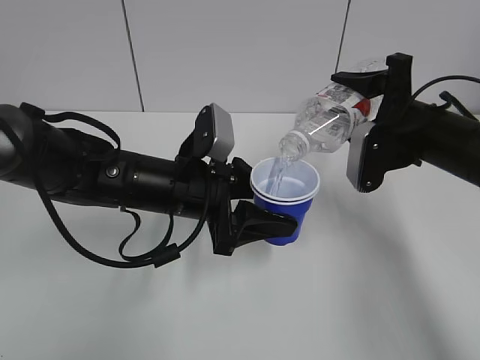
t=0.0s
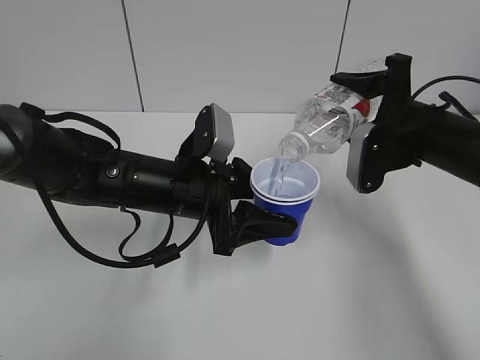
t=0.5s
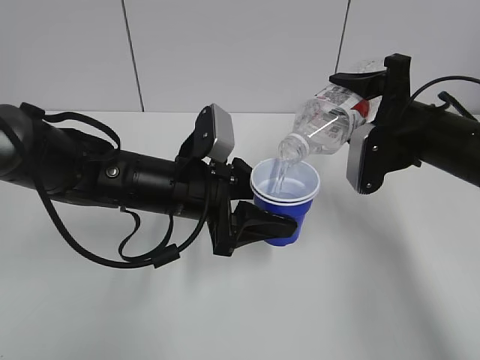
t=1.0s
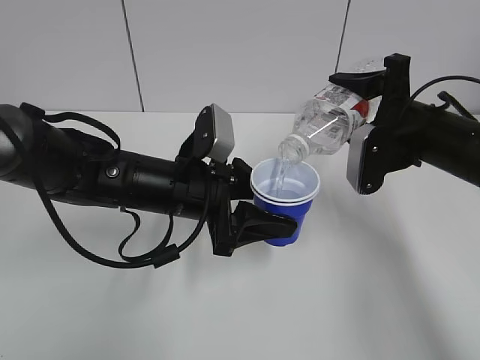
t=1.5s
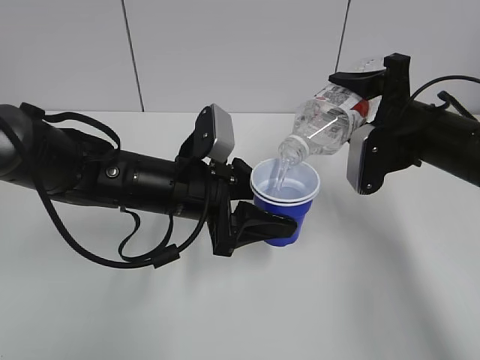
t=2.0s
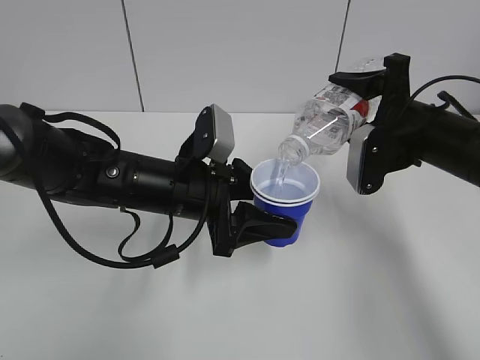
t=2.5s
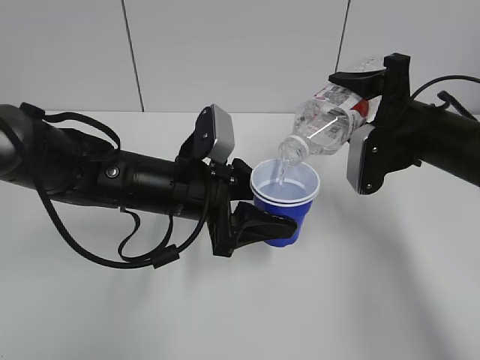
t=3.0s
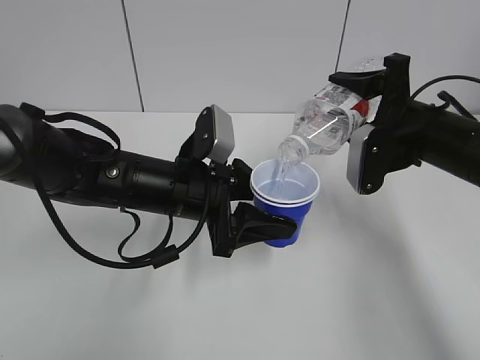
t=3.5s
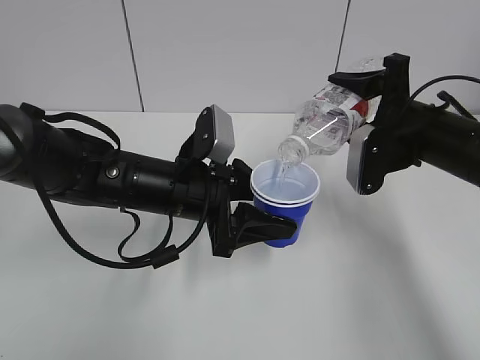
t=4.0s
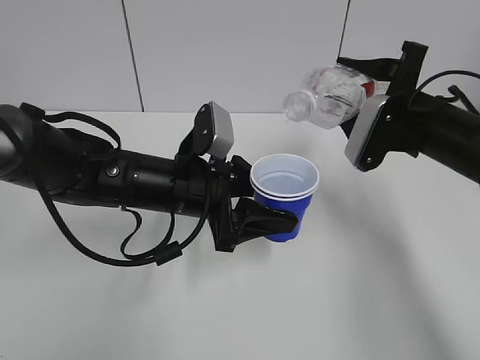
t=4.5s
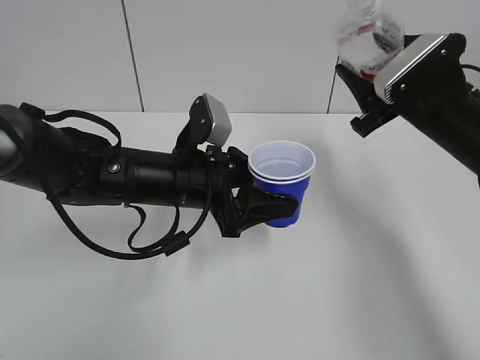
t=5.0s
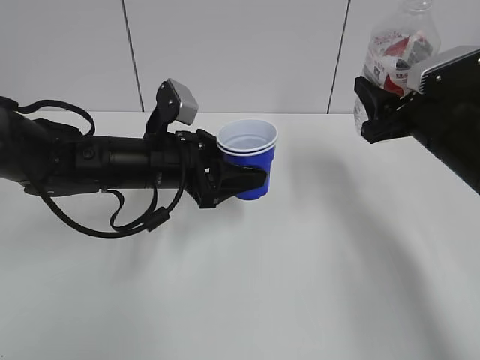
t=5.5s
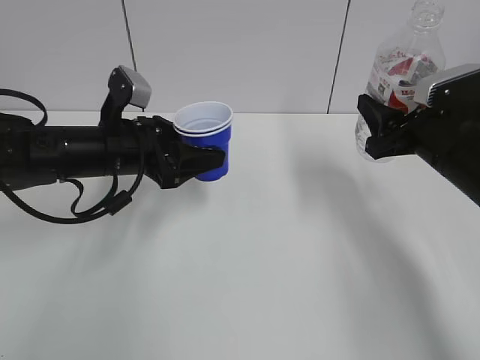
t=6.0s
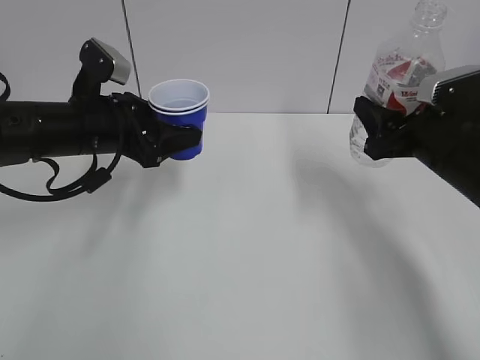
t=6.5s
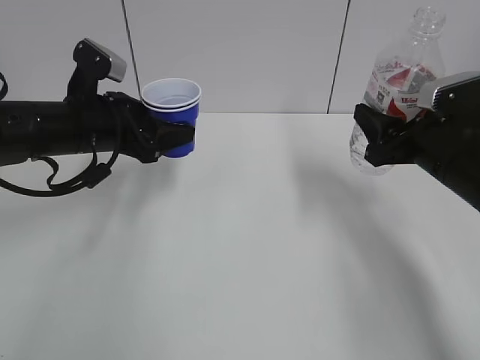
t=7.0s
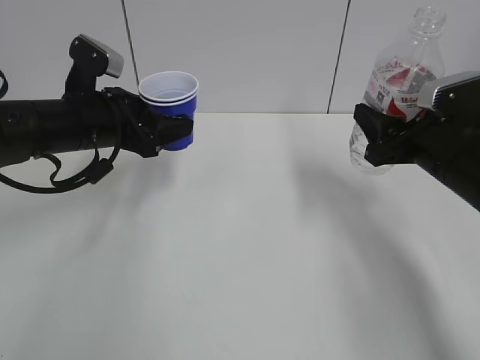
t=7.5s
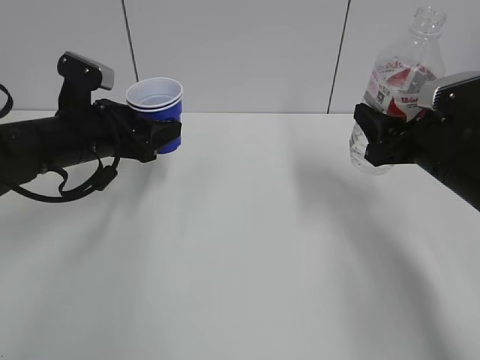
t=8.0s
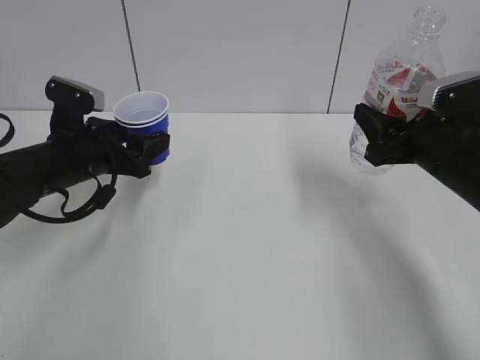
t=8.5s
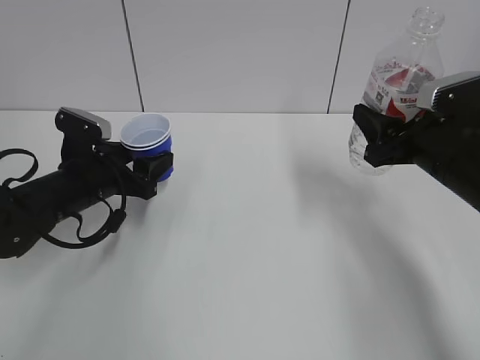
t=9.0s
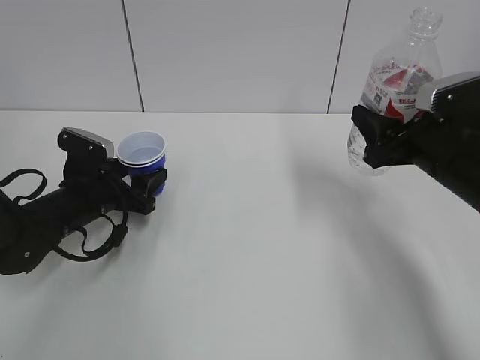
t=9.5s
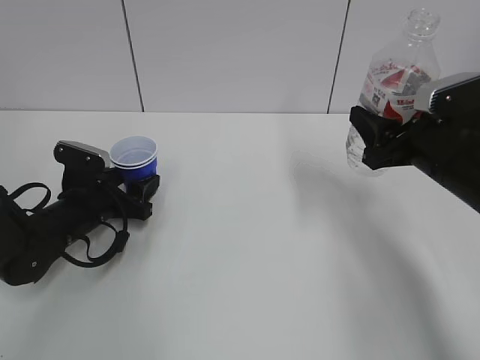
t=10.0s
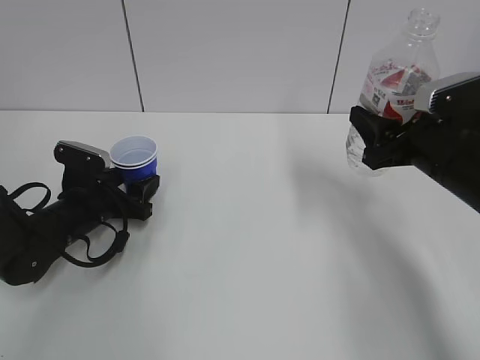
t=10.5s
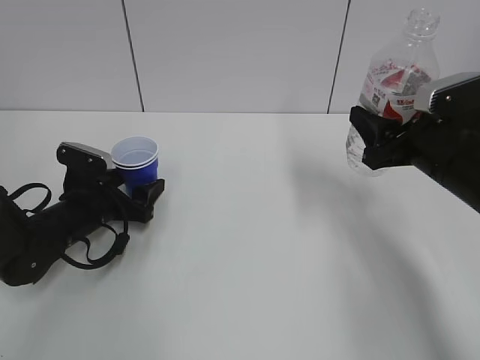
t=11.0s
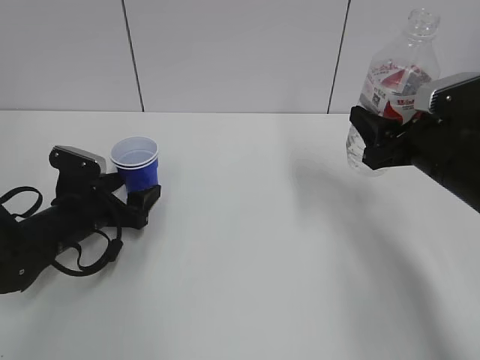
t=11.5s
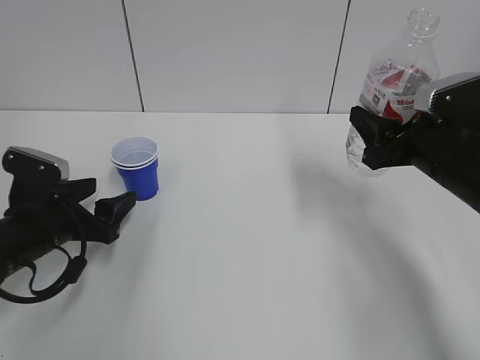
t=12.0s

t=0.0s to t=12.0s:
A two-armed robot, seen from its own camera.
Step, t=4.5s to t=5.5s: Collect water with the right hand.
Step, t=6.0s to t=11.0s: Place the paper cup with the left hand.
t=0.0s to t=4.0s: Both grippers stay put.
t=4.0s to t=6.0s: The left gripper travels to the left by some 10 cm.
t=8.0s to t=10.0s: The left gripper is displaced downward by about 10 cm.
t=10.0s to t=12.0s: The left gripper heads backward, covering roughly 5 cm, and opens.

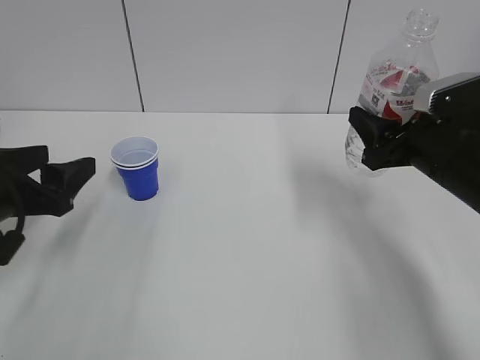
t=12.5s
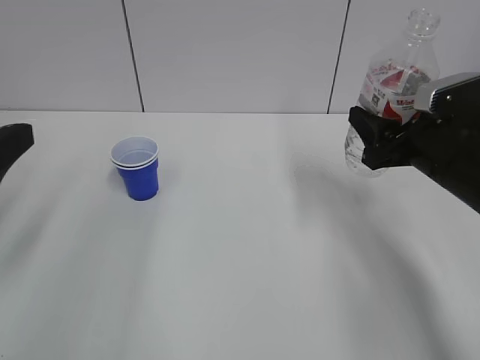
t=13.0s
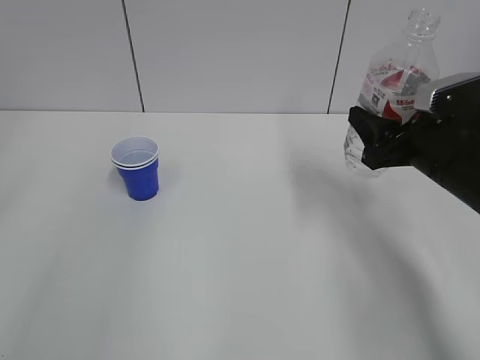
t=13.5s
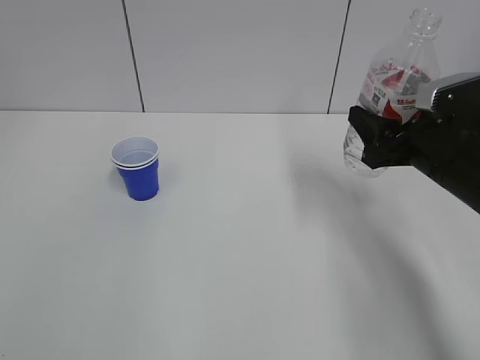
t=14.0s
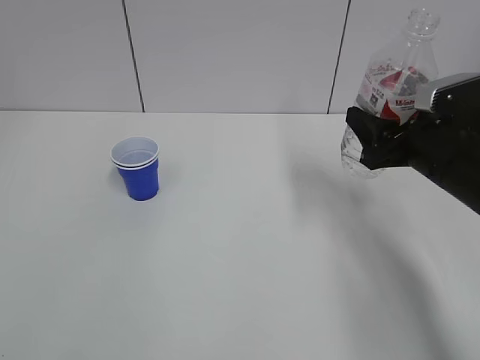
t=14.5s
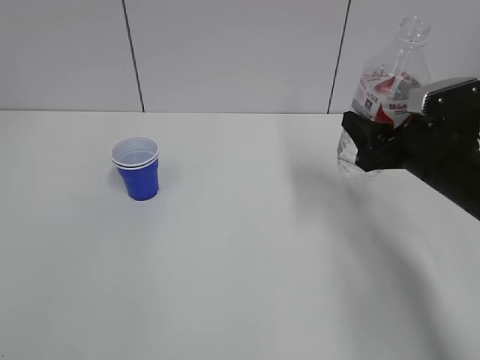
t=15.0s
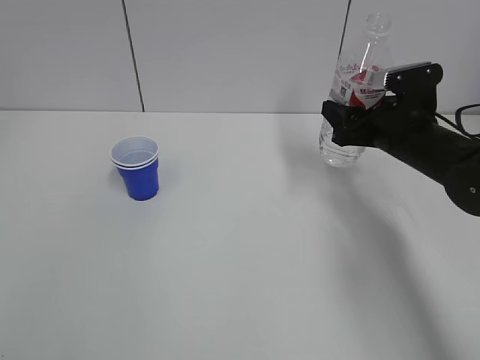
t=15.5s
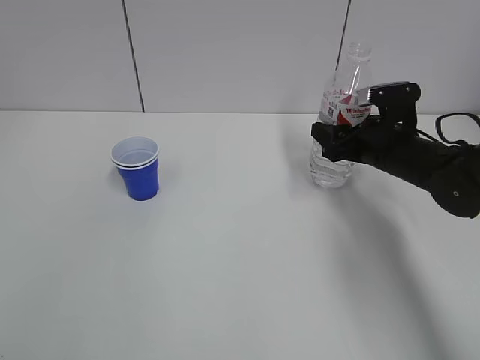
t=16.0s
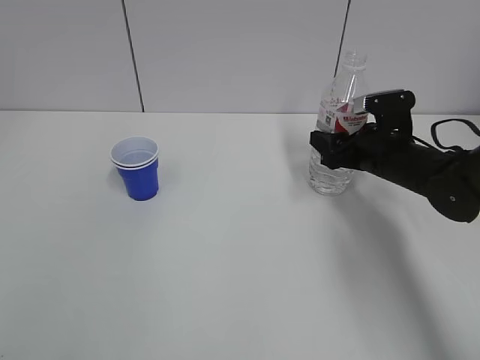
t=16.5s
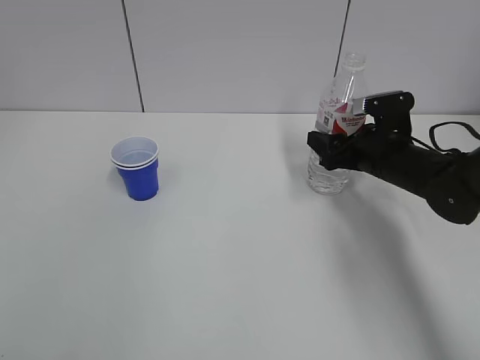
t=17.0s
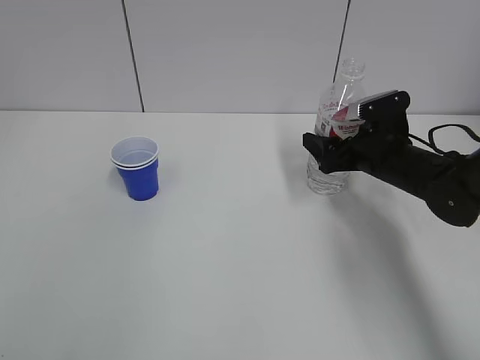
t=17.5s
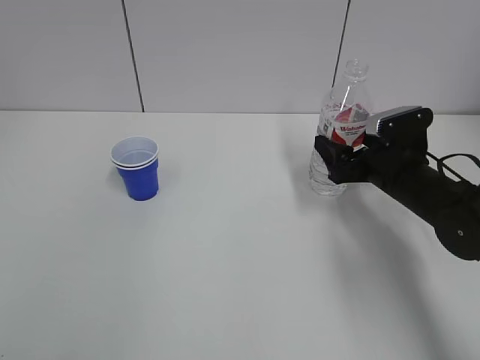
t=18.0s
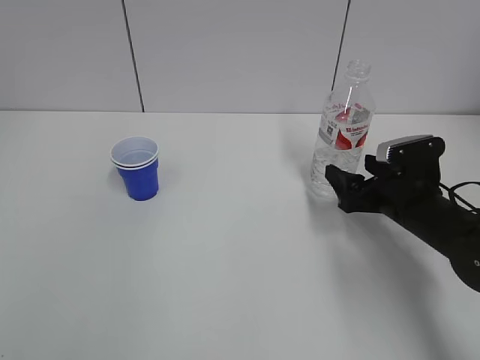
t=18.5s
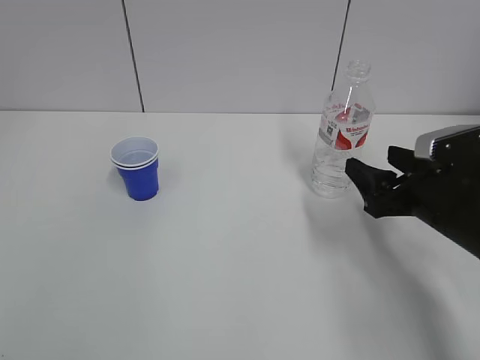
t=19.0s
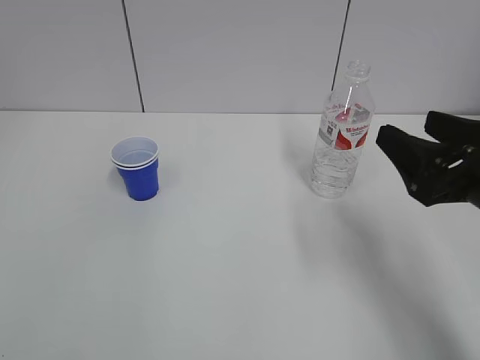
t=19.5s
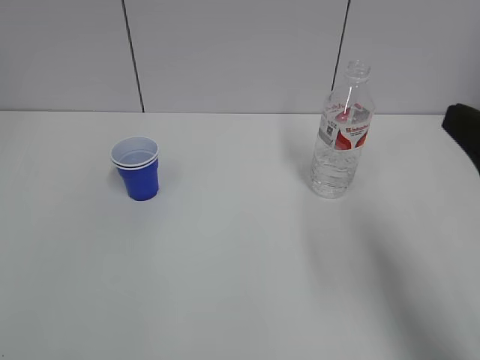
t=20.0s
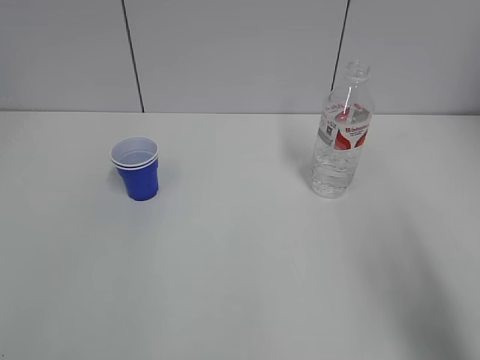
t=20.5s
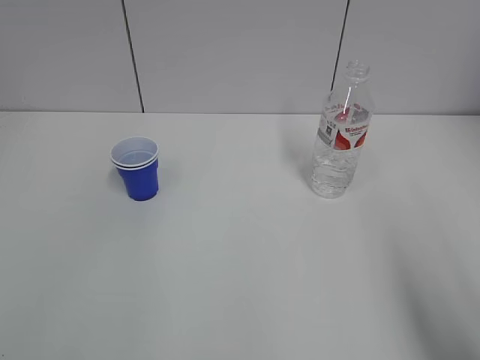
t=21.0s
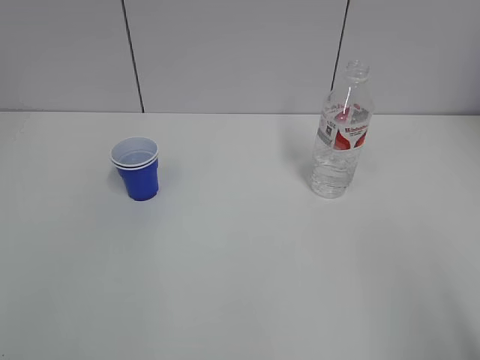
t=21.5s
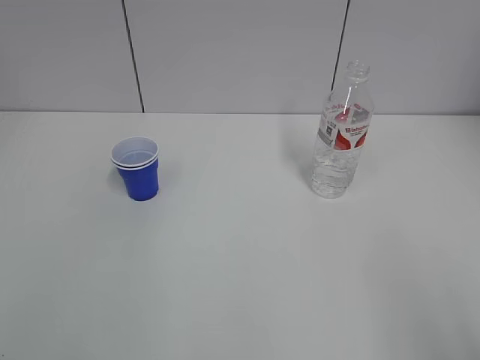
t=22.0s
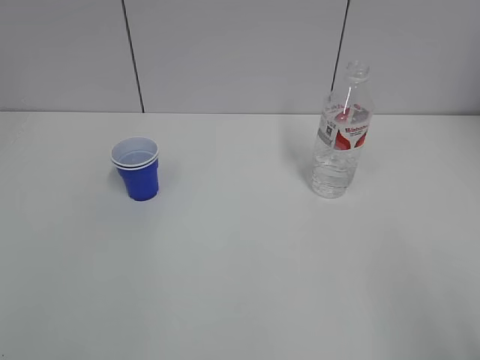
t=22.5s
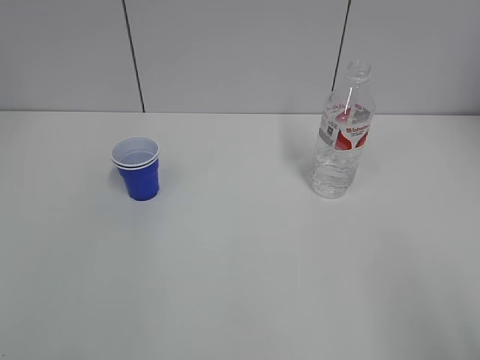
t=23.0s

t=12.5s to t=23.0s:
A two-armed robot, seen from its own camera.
Step, t=12.5s to t=17.0s: Place the water bottle with the right hand.
t=12.5s to t=14.5s: The left gripper goes about 25 cm backward and upward.
t=14.5s to t=16.5s: The right gripper moves forward and downward, roughly 10 cm.
t=16.5s to t=19.0s: The right gripper goes some 10 cm backward, and opens up.
t=19.0s to t=21.0s: The right gripper travels backward and upward by approximately 30 cm.
t=21.0s to t=23.0s: The right gripper heads backward, covering some 5 cm.
